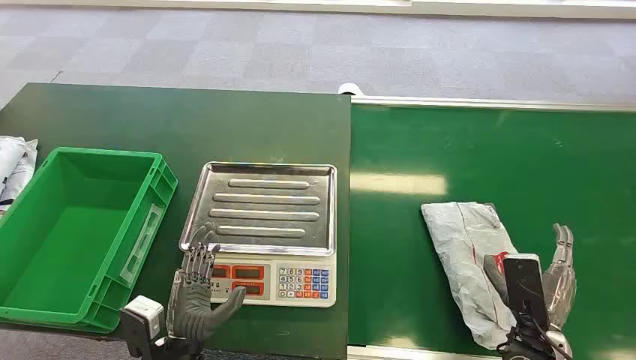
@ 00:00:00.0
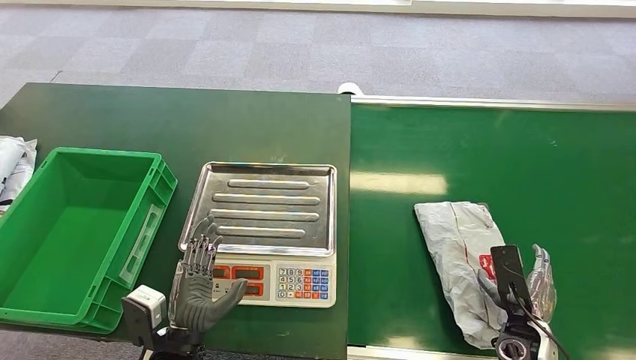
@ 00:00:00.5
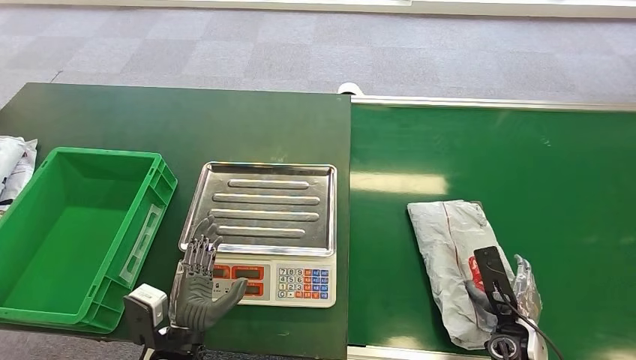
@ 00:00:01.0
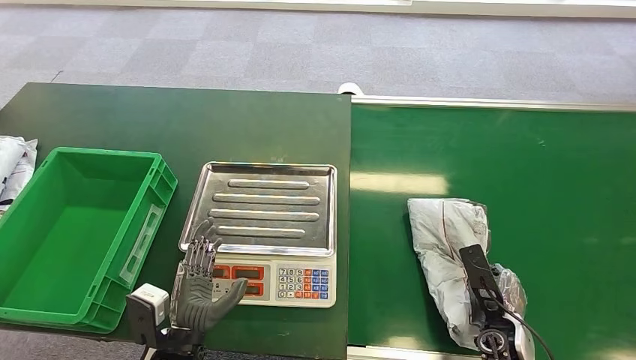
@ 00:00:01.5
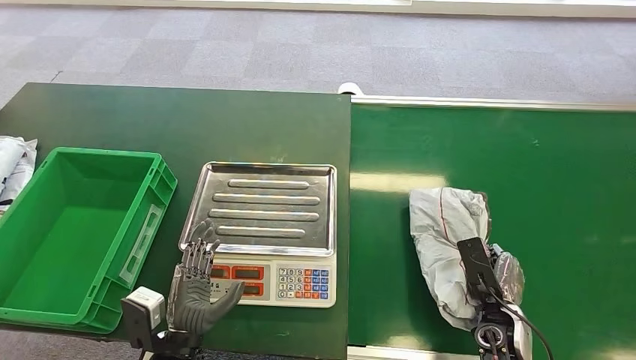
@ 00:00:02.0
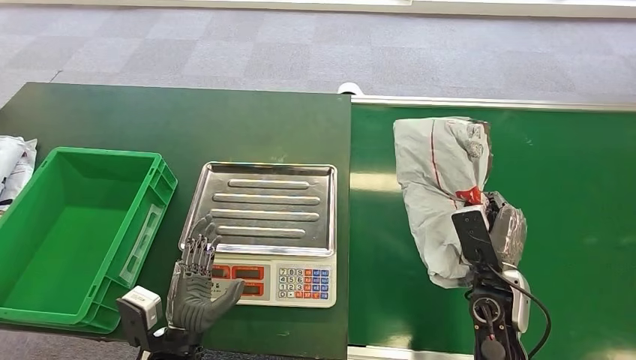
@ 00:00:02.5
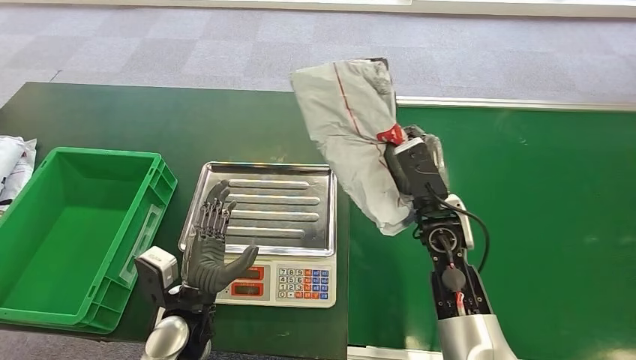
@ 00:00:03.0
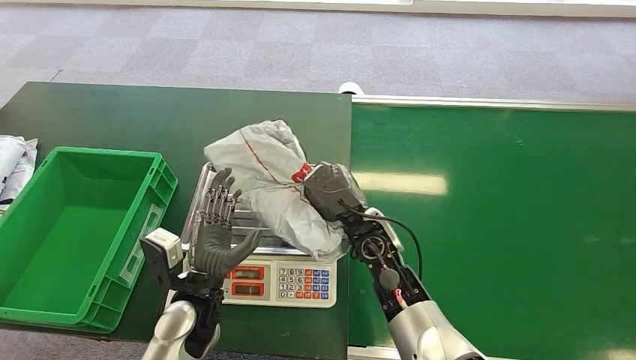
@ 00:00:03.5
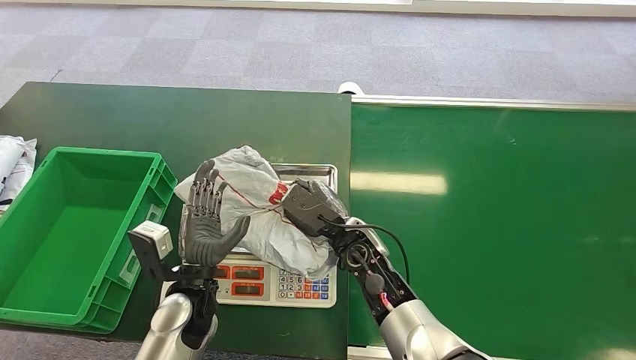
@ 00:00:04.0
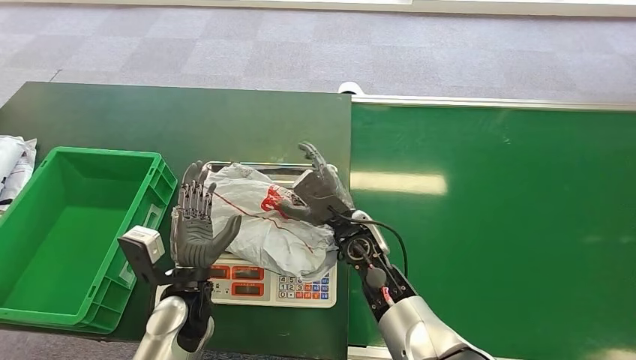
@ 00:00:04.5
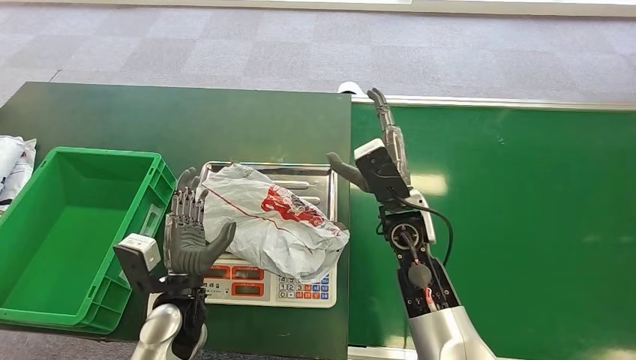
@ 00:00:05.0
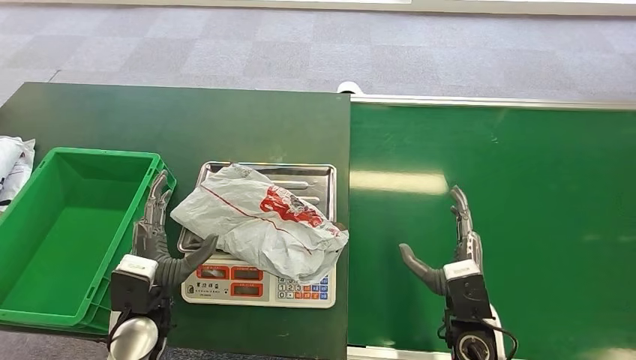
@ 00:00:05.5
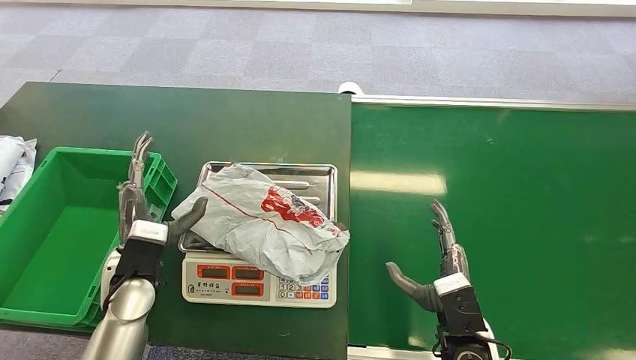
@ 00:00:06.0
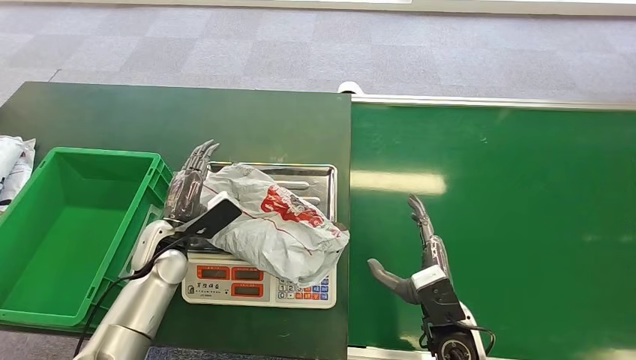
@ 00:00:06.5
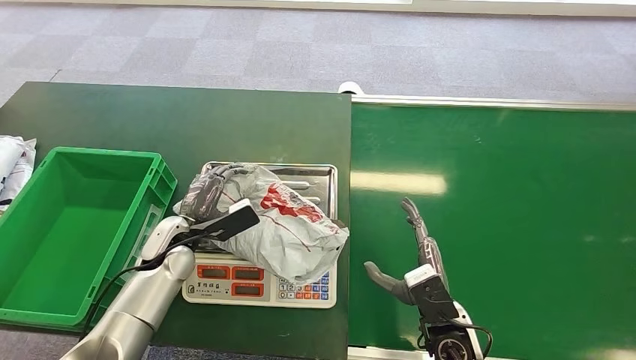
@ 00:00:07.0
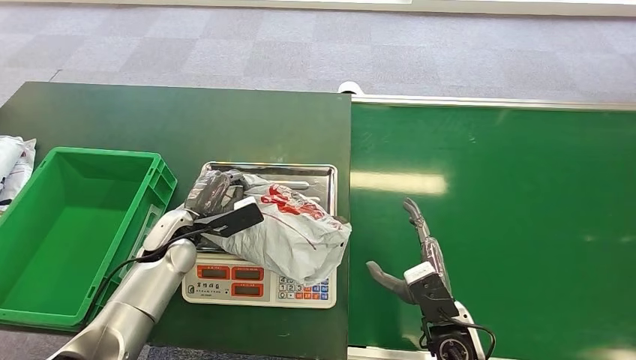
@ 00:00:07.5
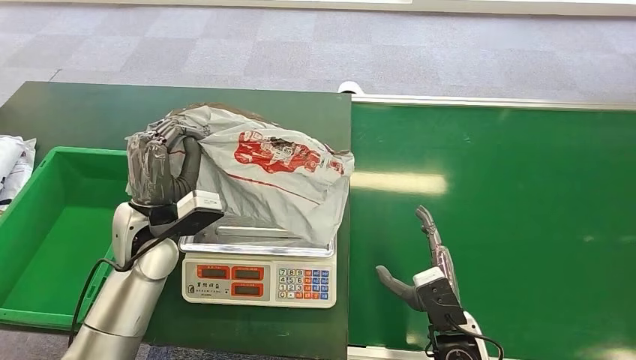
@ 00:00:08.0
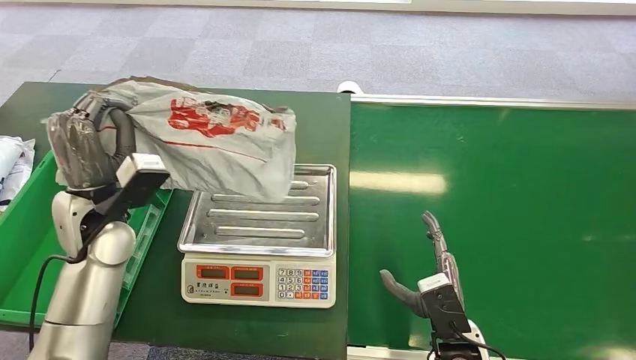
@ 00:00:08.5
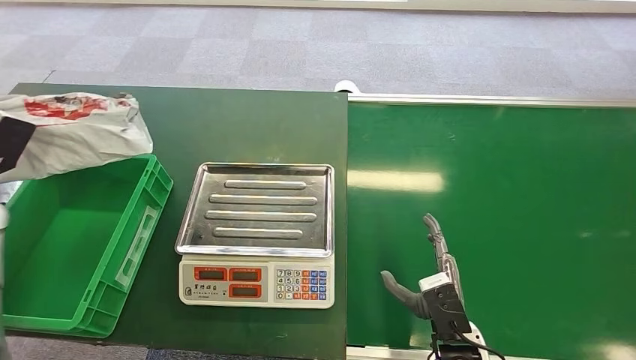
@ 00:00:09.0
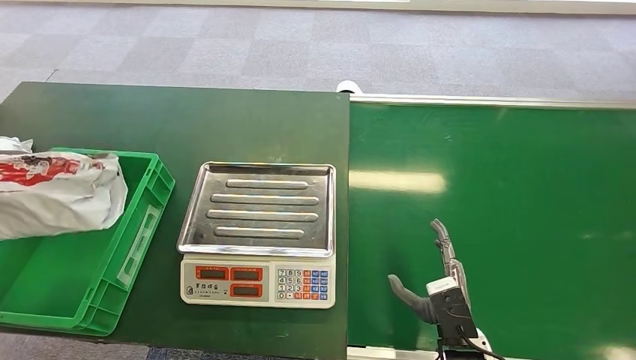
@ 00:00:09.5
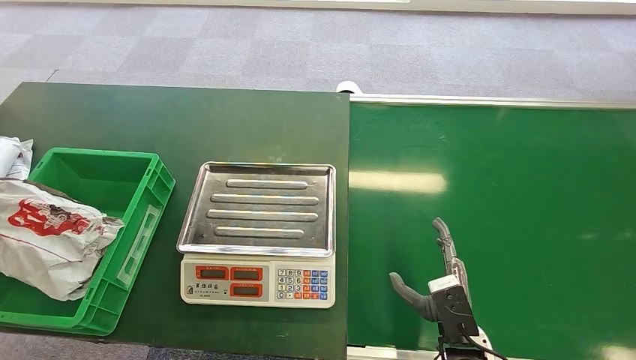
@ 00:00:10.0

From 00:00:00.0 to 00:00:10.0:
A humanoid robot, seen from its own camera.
Step, from 00:00:00.0 to 00:00:02.5: Pick up the package from the conveyor belt.
Step, from 00:00:03.0 to 00:00:04.0: Place the package onto the inbound machine.
Step, from 00:00:04.5 to 00:00:07.5: Pick up the package from the inbound machine.
Step, from 00:00:08.0 to 00:00:10.0: Place the package into the parcel locker.
From 00:00:02.0 to 00:00:04.0: The left hand heads forward, covering approximately 10 cm; the right hand moves to the left, roughly 25 cm.
From 00:00:04.0 to 00:00:06.0: The left hand moves to the left, roughly 10 cm; the right hand is displaced to the right and backward by roughly 20 cm.
From 00:00:06.0 to 00:00:08.0: The left hand shifts approximately 10 cm upward and forward.
